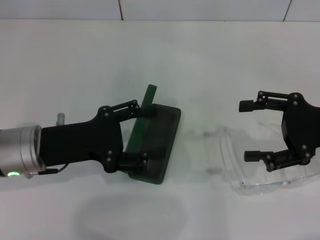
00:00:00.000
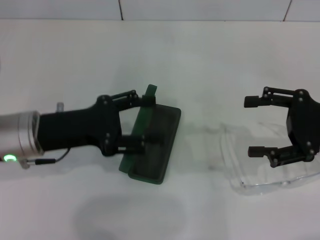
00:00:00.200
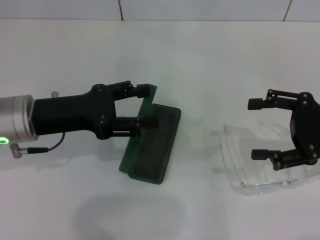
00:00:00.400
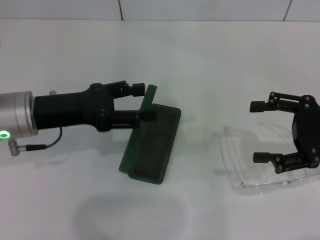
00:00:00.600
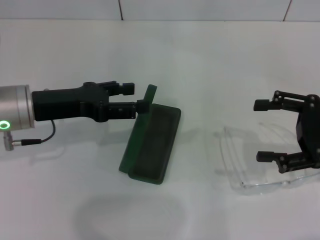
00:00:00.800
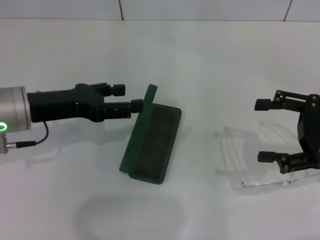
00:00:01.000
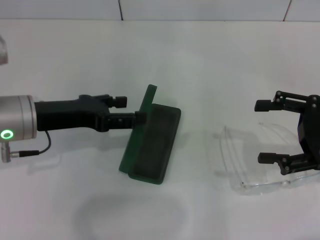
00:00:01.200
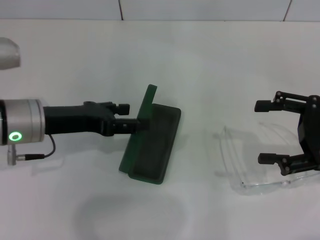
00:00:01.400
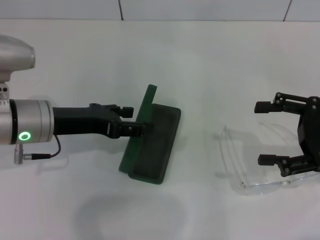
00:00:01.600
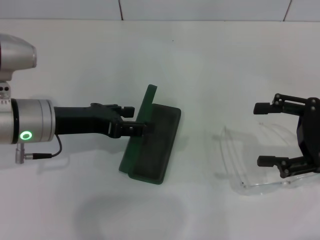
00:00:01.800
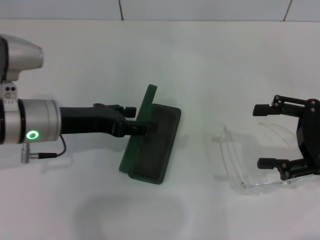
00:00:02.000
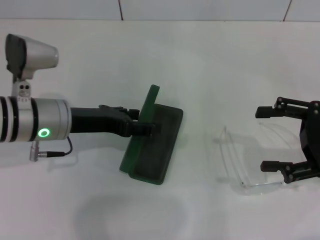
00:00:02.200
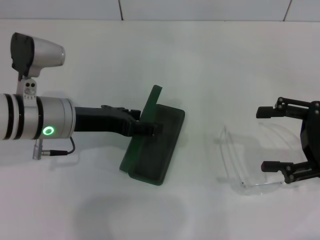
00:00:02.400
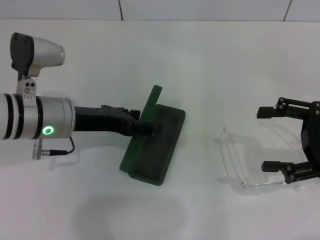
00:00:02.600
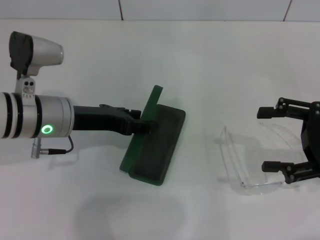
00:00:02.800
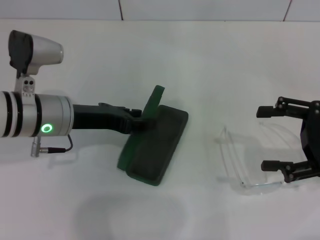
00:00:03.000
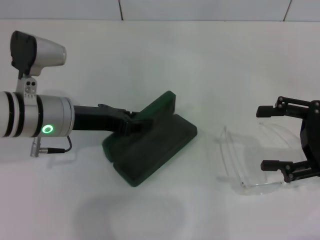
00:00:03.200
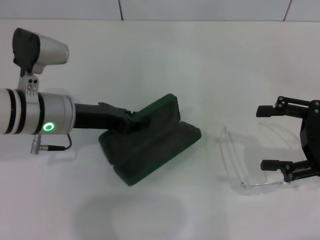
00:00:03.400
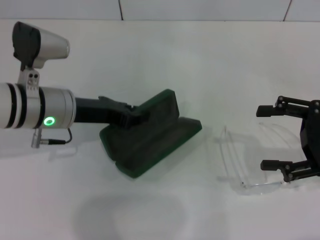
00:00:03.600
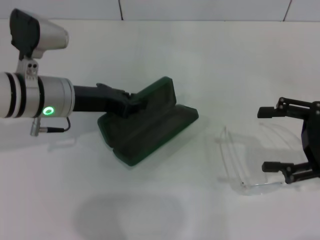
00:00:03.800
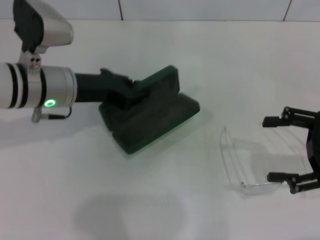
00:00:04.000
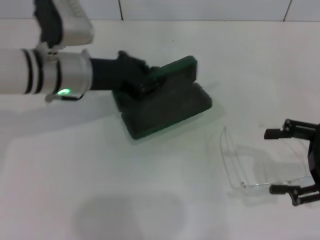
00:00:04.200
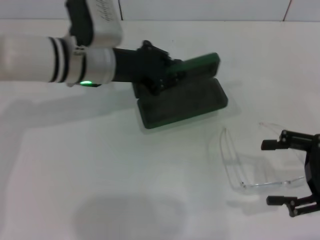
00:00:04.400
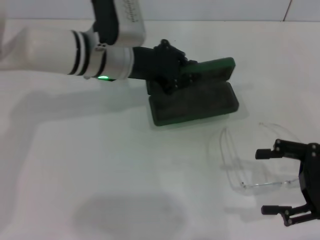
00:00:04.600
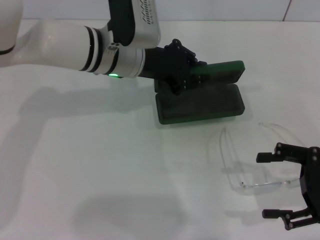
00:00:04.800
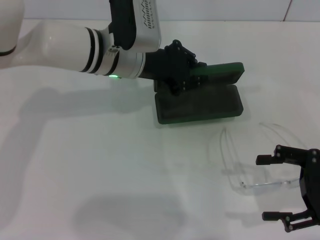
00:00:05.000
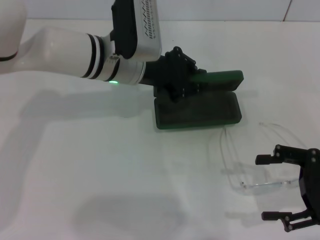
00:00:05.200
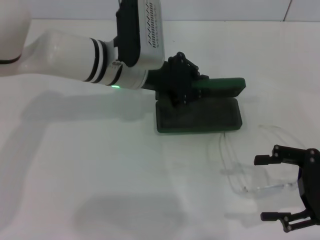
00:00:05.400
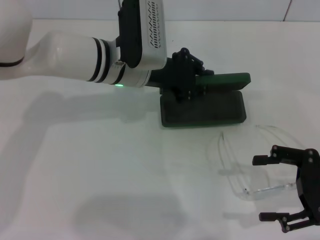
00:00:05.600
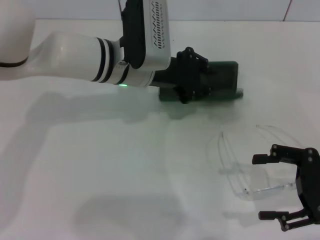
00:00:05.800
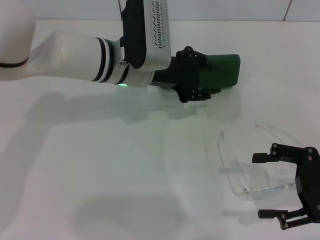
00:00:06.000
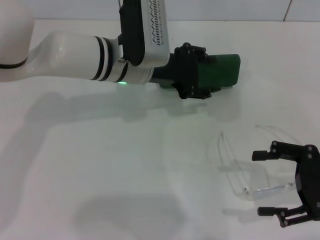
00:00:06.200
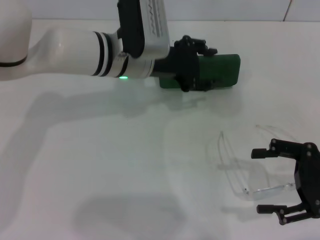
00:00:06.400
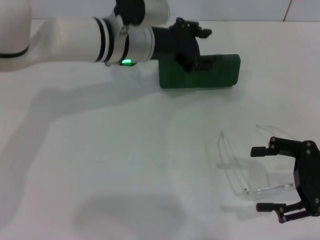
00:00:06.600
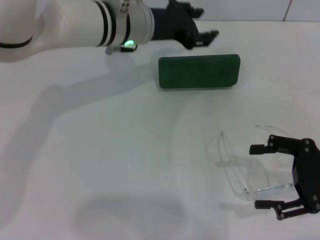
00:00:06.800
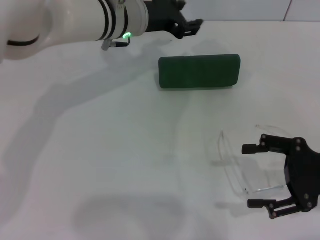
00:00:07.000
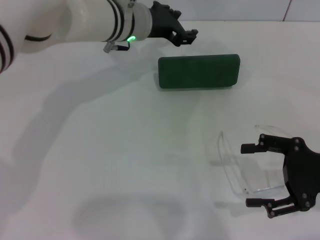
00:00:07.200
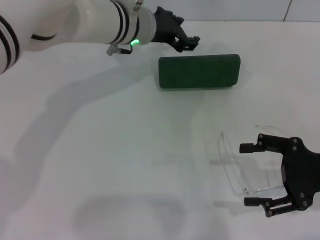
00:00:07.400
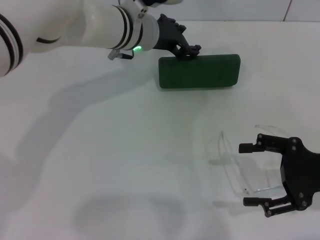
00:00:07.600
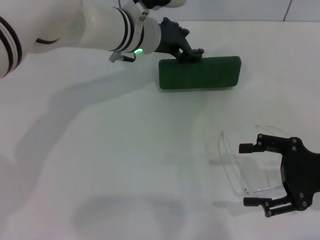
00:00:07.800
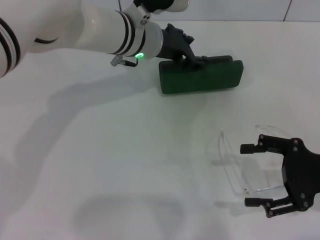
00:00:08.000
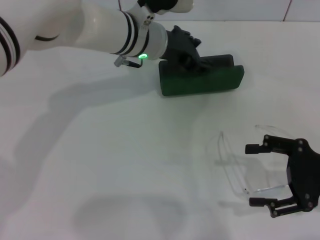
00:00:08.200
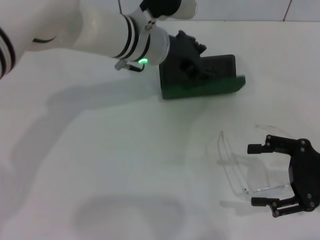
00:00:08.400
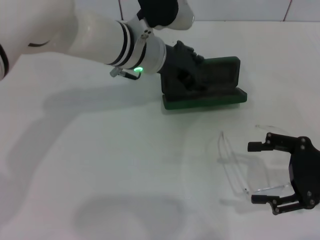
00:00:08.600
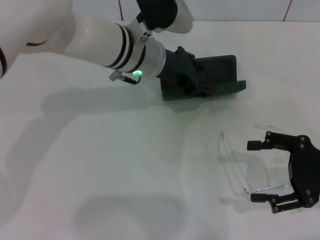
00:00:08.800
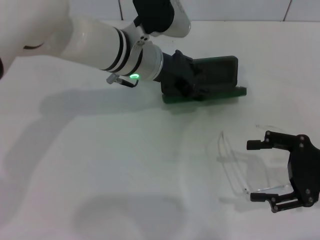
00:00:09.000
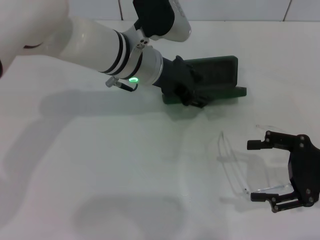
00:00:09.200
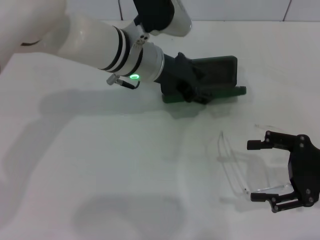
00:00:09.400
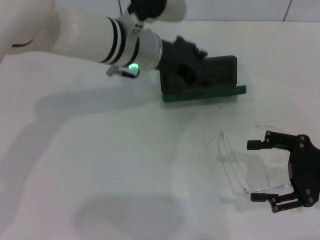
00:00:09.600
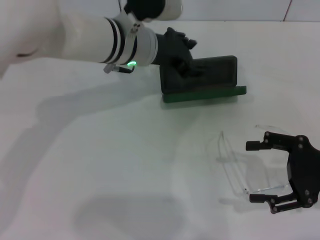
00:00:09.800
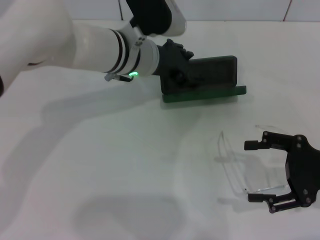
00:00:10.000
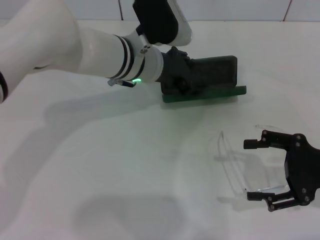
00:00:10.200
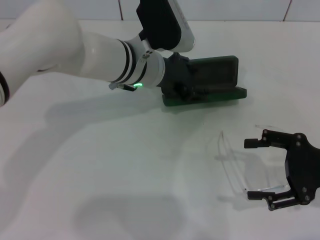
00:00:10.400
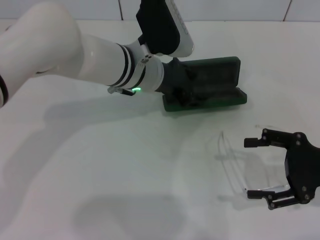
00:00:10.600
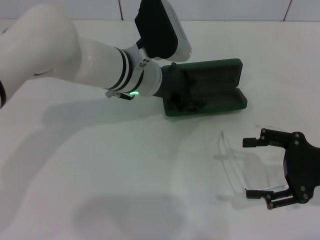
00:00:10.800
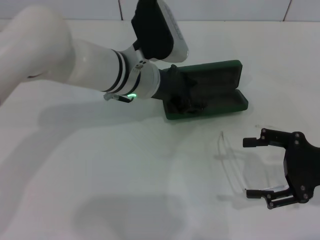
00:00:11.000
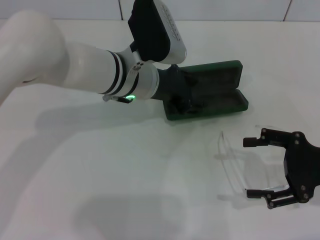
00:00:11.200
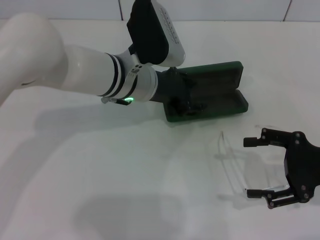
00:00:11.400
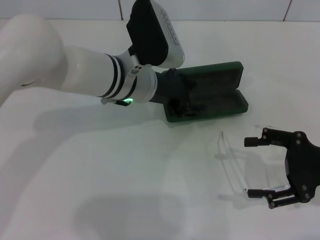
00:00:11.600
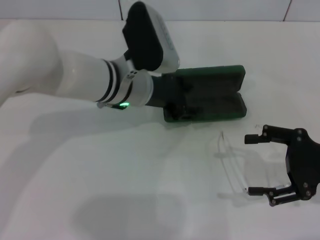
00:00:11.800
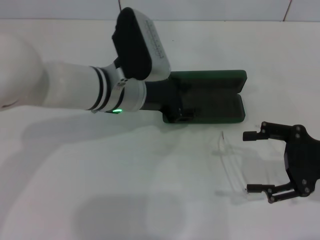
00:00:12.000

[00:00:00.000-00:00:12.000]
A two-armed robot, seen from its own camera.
Step, 00:00:00.000 to 00:00:03.400: Grab the glasses case with your left hand.
00:00:01.600 to 00:00:03.000: The grippers stay close to where they were, moving slightly.
00:00:03.000 to 00:00:04.400: The left gripper moves forward and to the right, roughly 10 cm, and closes up.
00:00:04.400 to 00:00:06.000: The left gripper shifts approximately 5 cm to the right.
00:00:06.000 to 00:00:07.600: The left gripper ends up some 5 cm from where it was, and opens its fingers.
00:00:07.600 to 00:00:10.400: The grippers move only a little.

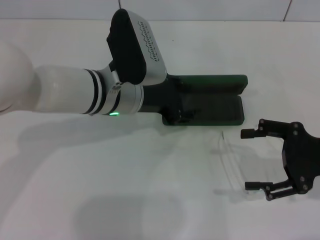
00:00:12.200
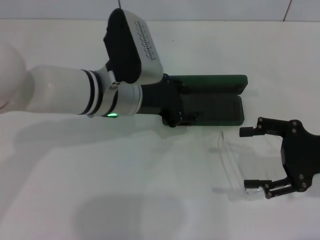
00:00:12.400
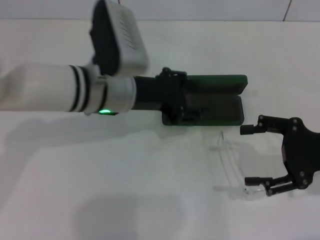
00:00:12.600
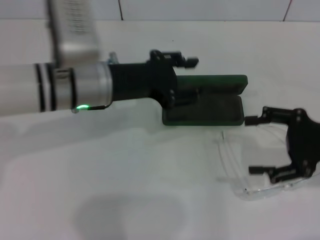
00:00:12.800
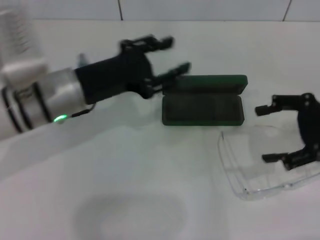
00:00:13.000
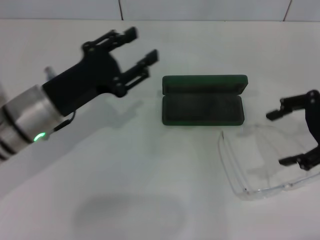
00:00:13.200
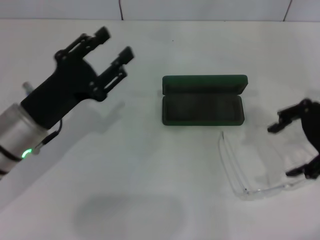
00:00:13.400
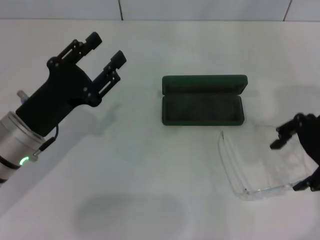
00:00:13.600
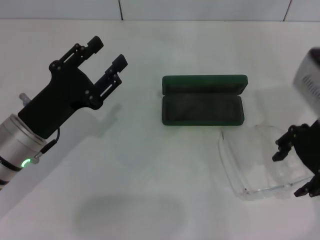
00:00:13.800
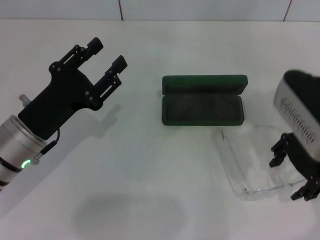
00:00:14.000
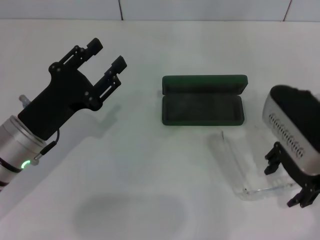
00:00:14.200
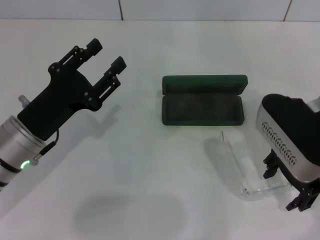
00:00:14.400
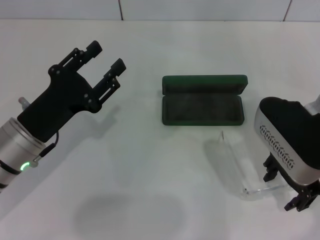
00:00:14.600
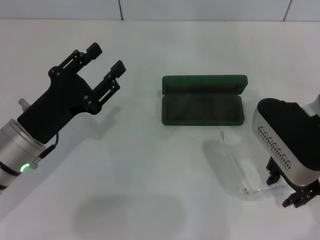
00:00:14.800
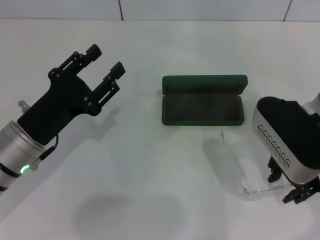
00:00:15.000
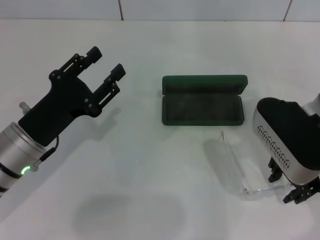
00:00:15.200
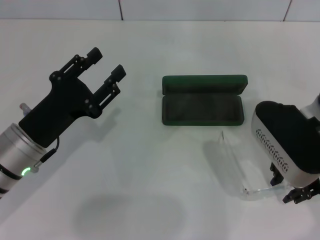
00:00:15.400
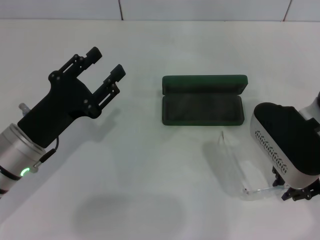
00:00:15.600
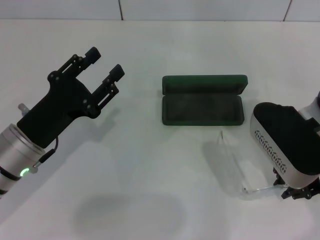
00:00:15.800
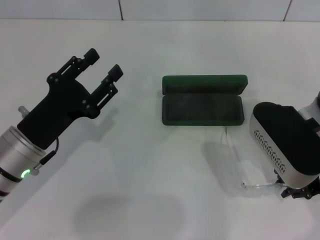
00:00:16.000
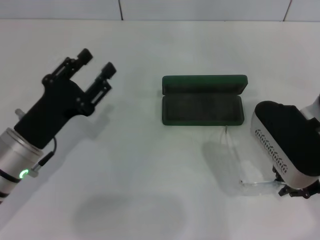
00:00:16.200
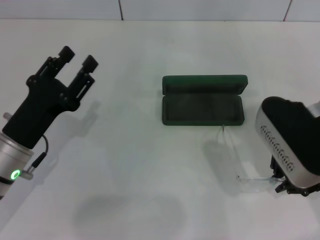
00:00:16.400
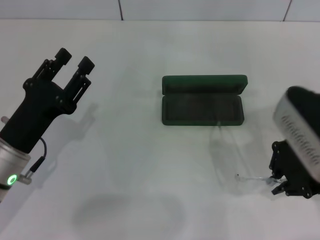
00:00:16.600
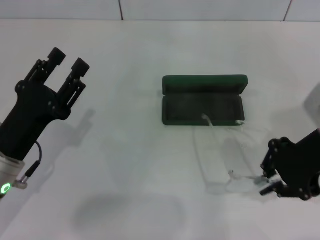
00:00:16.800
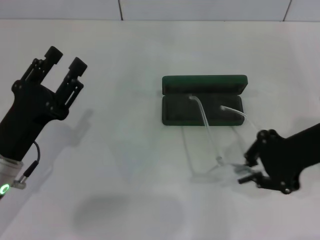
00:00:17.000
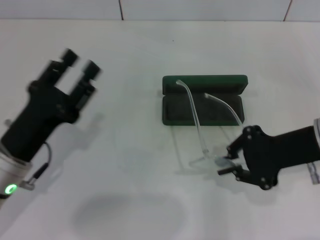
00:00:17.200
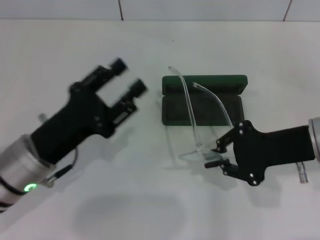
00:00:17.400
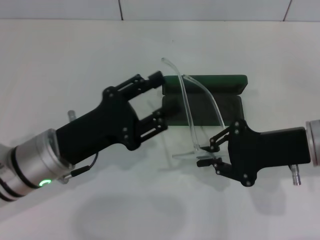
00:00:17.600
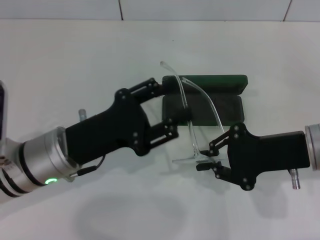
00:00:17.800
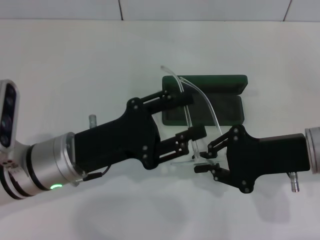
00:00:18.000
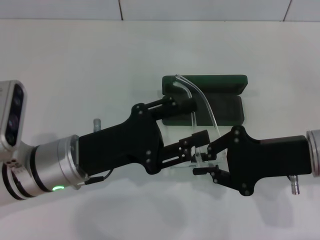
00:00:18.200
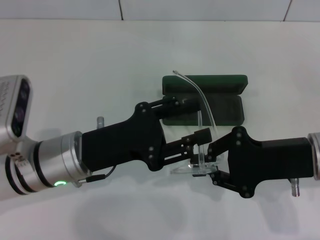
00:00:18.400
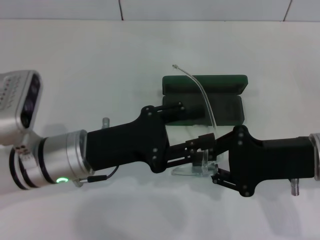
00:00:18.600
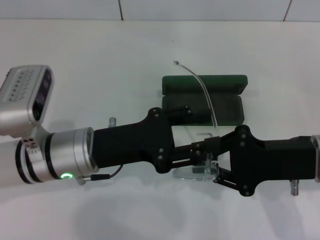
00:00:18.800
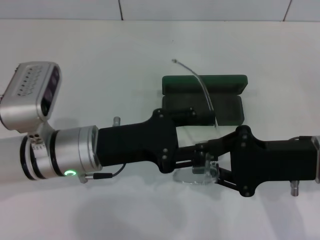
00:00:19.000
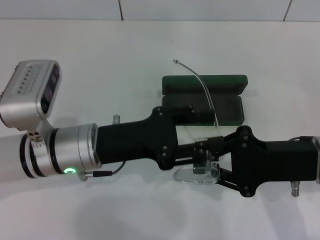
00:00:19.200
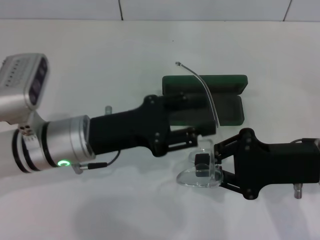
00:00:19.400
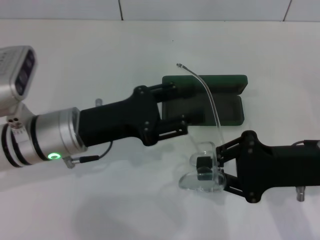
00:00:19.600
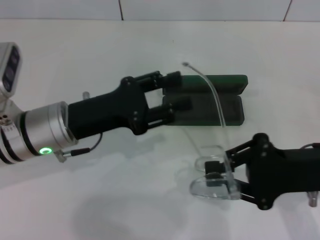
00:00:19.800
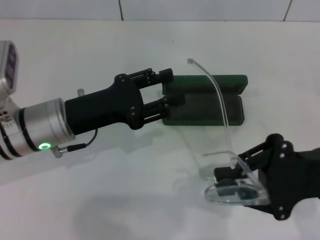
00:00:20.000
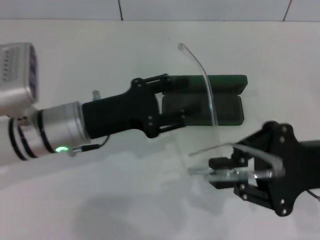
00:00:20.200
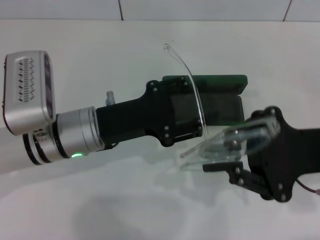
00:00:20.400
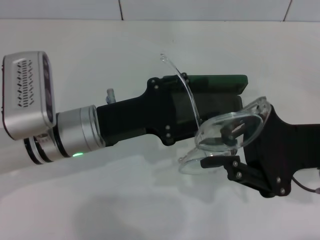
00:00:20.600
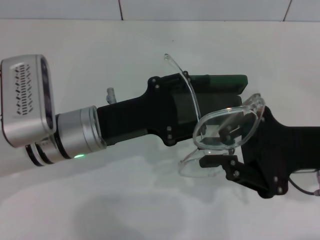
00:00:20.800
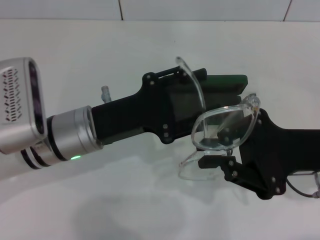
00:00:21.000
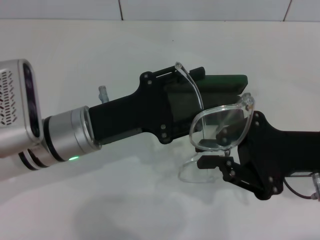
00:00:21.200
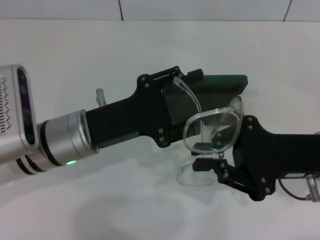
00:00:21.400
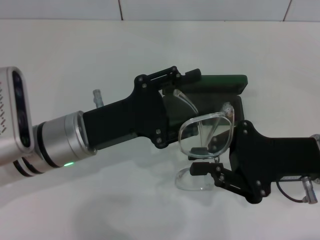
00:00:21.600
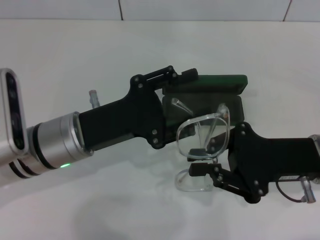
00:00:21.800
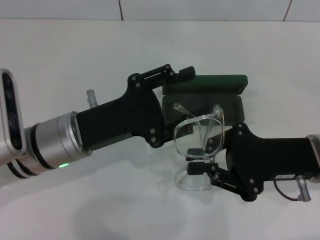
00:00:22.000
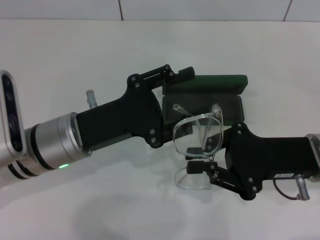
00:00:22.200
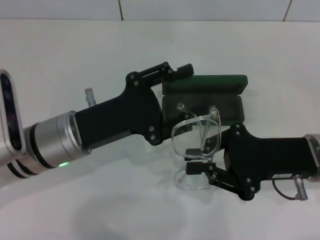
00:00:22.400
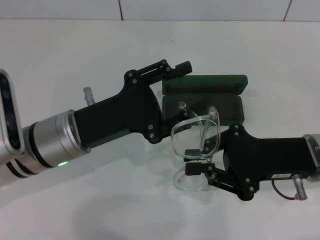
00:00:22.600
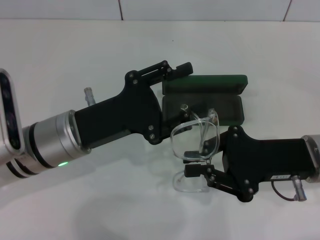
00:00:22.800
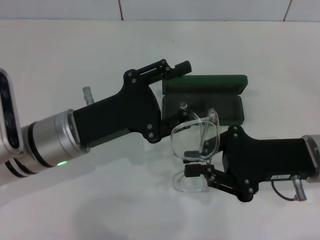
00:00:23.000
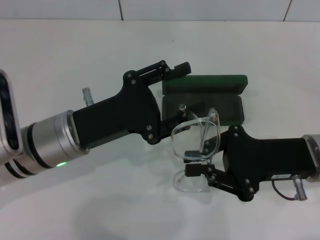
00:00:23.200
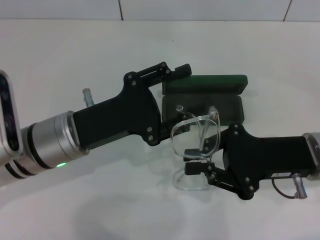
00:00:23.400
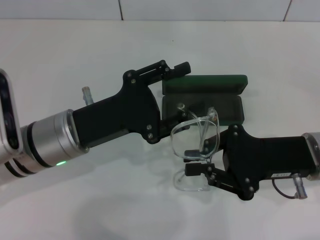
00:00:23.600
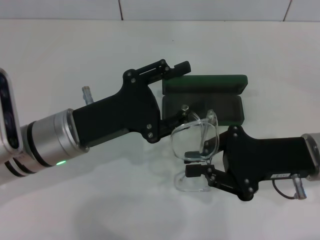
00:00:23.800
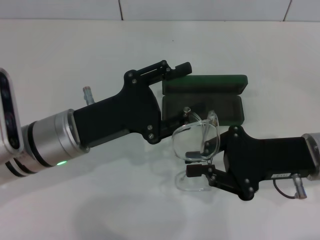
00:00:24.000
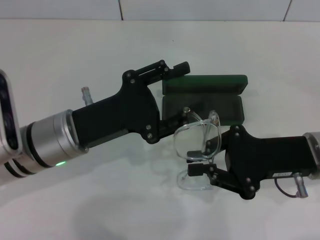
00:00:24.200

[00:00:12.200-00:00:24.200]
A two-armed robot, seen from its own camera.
Step, 00:00:12.600 to 00:00:16.200: Grab the eyeglass frame with your right hand.
00:00:12.200 to 00:00:13.800: The left gripper is displaced to the left and backward by about 15 cm. Meanwhile the right gripper goes roughly 10 cm upward and to the left.
00:00:13.800 to 00:00:15.200: The right gripper moves roughly 5 cm, and closes.
00:00:15.200 to 00:00:16.600: The right gripper closes its fingers.
00:00:16.600 to 00:00:18.200: The right gripper travels downward by approximately 5 cm, while the left gripper moves to the right, some 5 cm.
00:00:21.200 to 00:00:22.600: The grippers move only a little.
00:00:22.600 to 00:00:24.200: Both grippers stay put.
